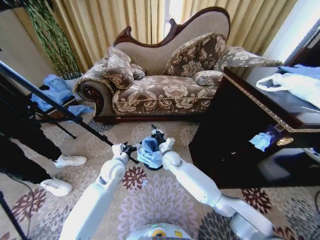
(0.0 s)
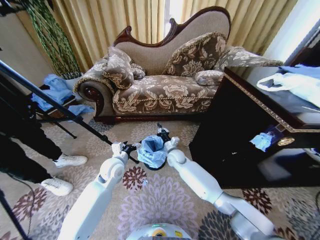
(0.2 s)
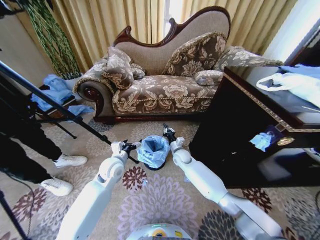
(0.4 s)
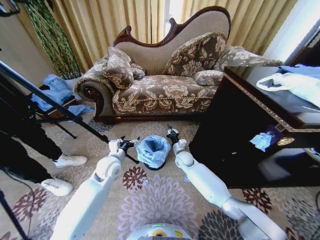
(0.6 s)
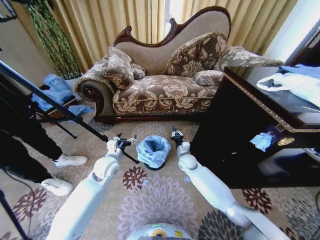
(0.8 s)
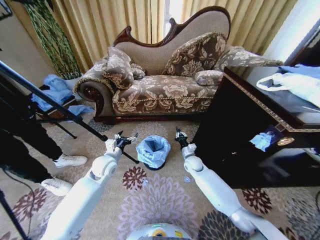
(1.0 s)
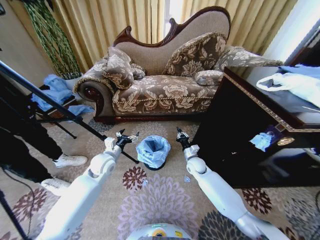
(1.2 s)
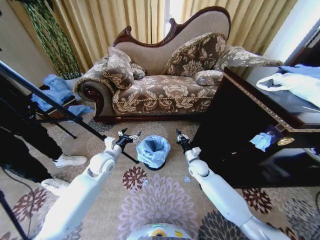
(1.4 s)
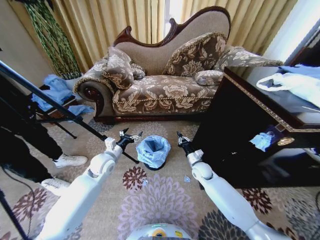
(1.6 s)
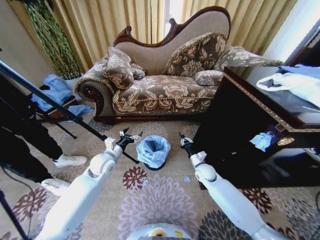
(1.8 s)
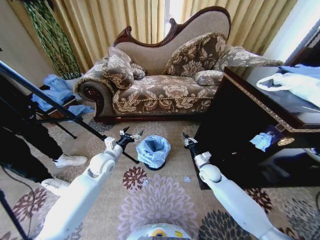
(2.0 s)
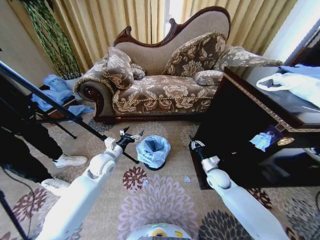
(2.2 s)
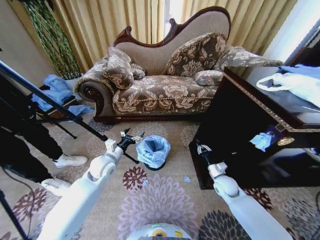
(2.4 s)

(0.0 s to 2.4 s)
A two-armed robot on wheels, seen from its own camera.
Task of the whole recording: Place a garbage bag over the trash bin.
0.0 s - 1.2 s: The left gripper shifts by roughly 5 cm. The right gripper heads to the right, covering some 15 cm.
1.2 s - 2.4 s: The right gripper travels to the right and backward by about 15 cm.
